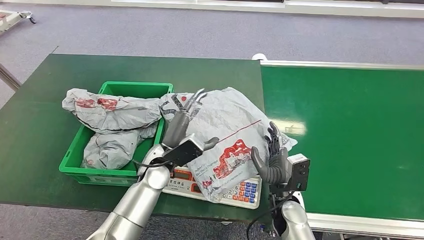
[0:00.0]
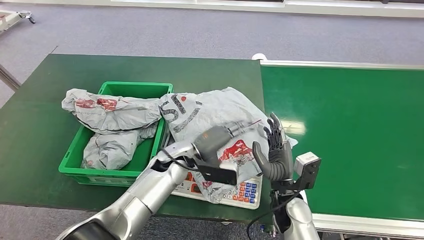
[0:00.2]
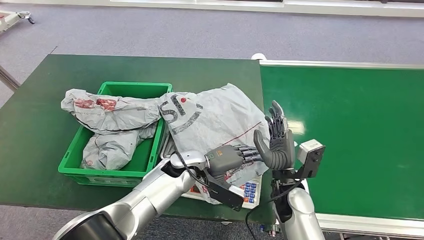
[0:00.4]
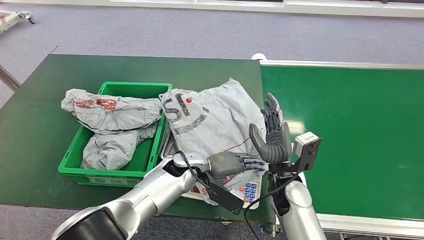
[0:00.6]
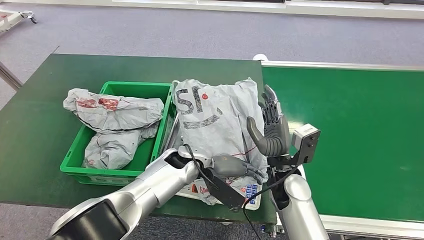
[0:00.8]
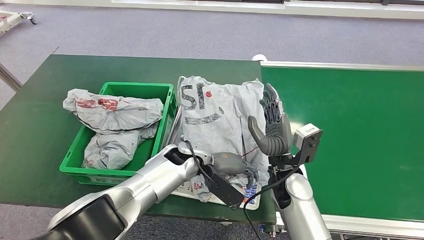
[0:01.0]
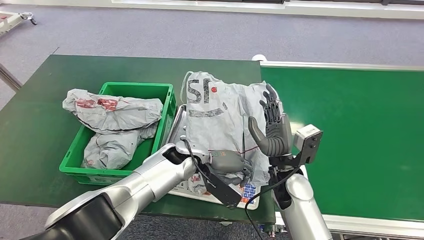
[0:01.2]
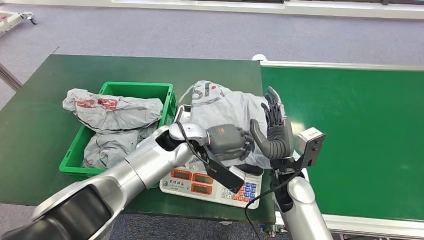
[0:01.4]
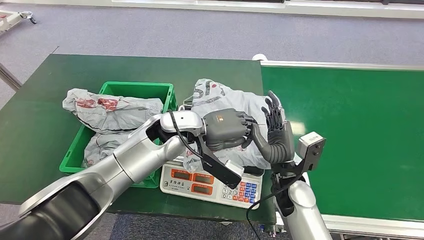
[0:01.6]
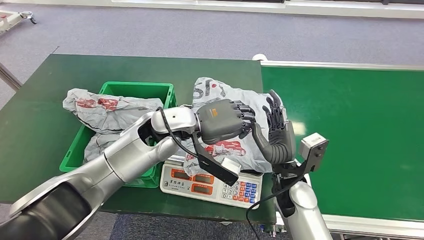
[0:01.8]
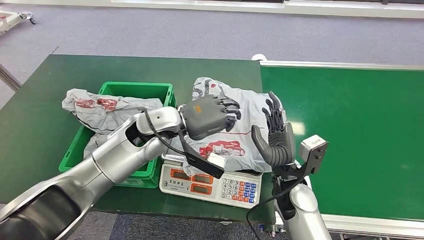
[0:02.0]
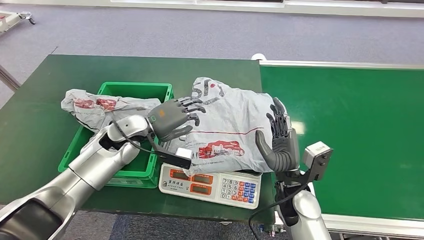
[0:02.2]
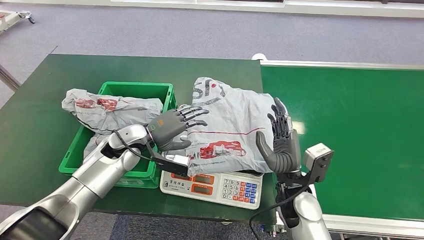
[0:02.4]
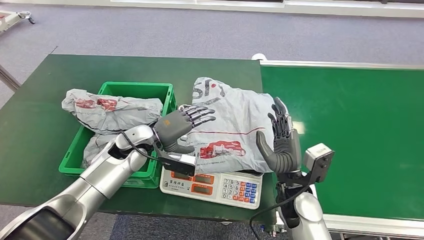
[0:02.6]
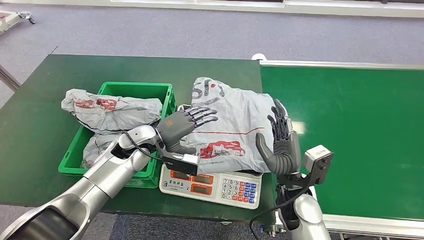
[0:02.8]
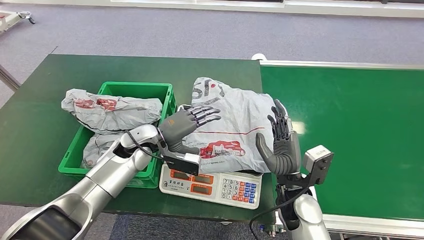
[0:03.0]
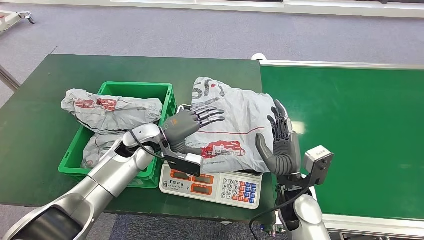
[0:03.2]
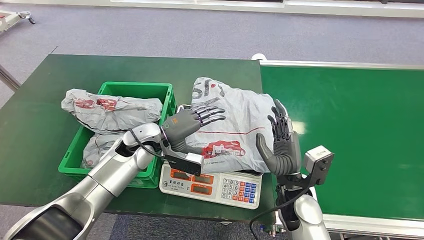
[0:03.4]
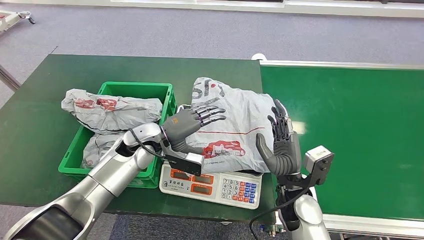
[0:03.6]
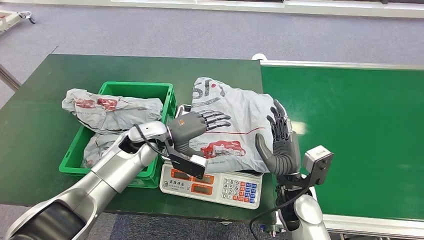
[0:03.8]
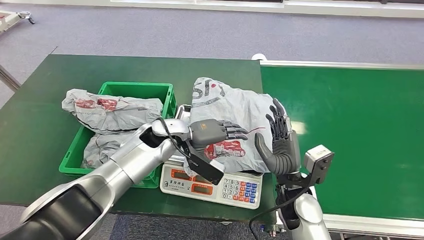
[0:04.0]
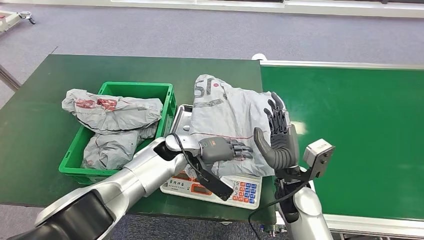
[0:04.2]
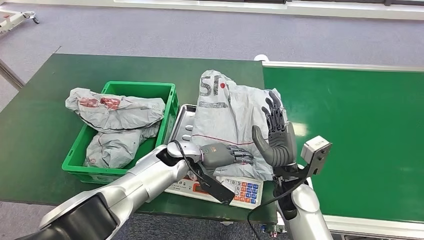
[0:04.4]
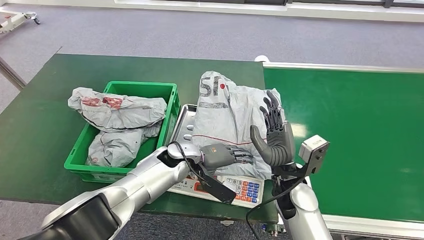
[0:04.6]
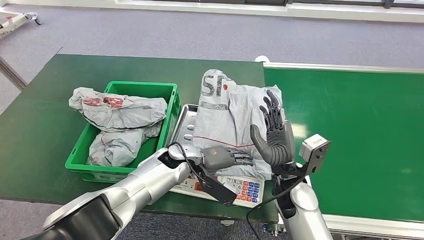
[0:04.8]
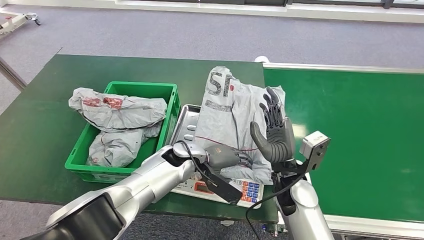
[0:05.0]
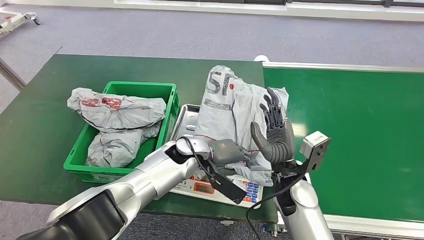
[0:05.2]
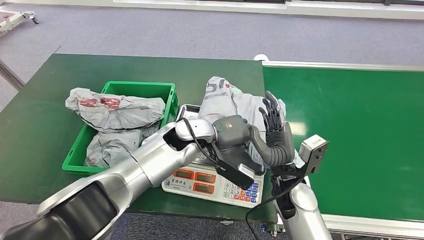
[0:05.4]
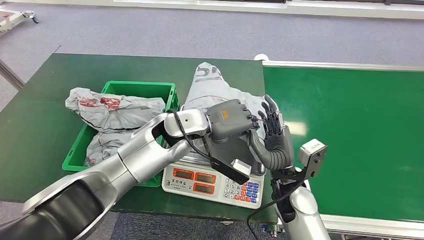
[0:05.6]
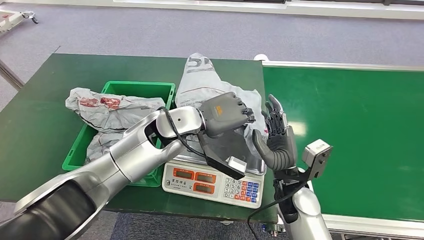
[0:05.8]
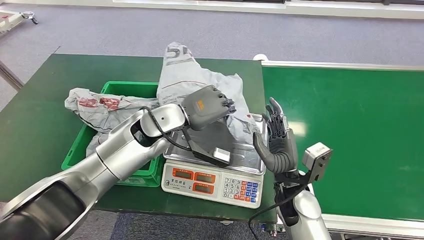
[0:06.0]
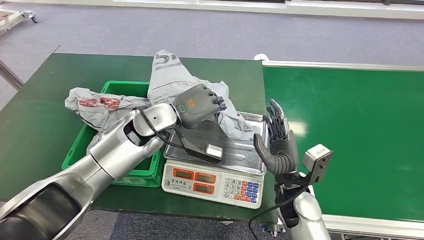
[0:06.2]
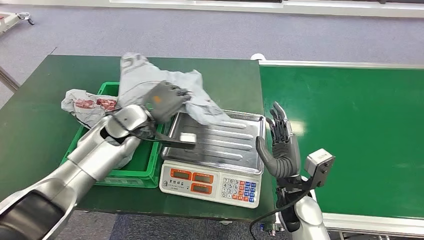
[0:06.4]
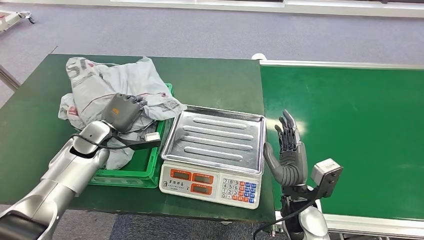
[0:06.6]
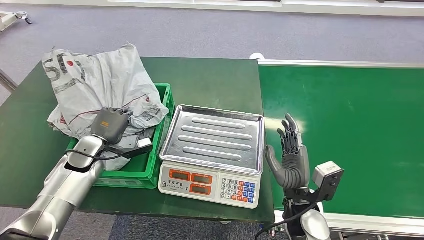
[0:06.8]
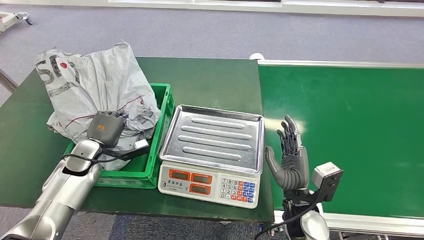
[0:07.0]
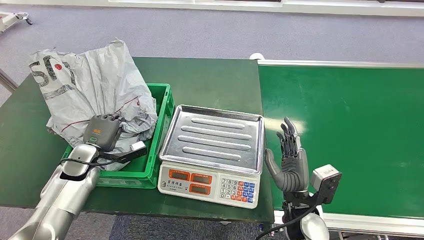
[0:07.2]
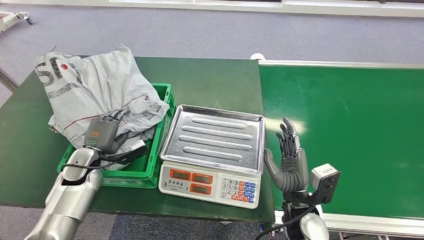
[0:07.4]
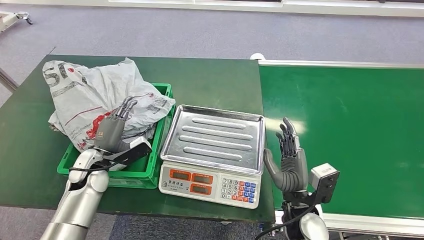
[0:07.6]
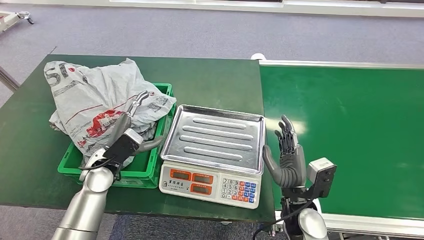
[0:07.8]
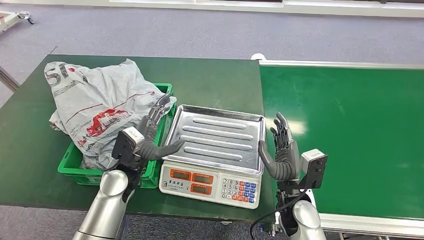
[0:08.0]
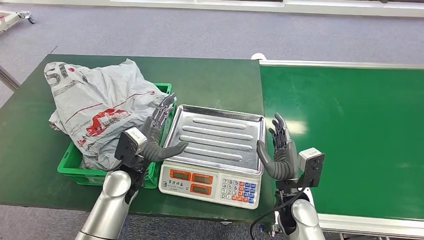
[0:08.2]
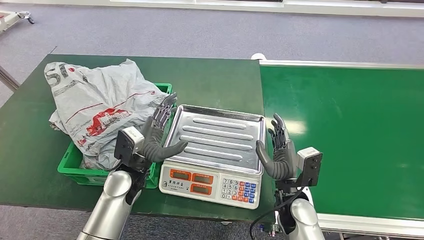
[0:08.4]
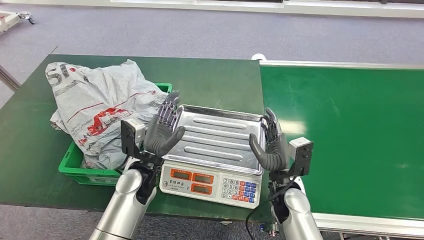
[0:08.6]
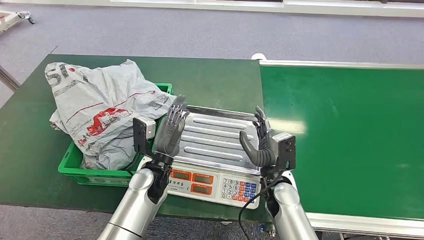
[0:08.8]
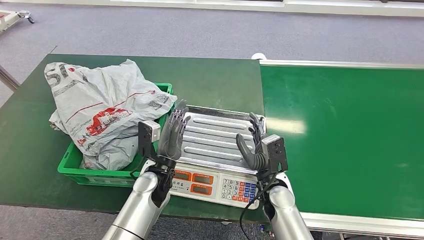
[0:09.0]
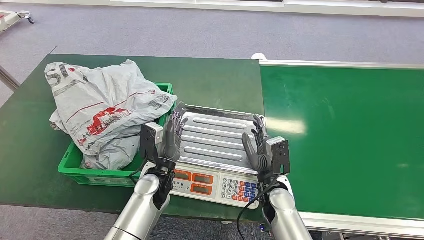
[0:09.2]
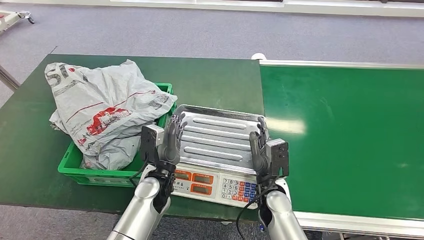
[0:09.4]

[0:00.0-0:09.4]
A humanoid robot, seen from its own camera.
Step, 0:00.0 to 0:05.6: Pick up the package from the inbound machine.
Step, 0:06.0 to 0:09.4: Place the package into the parcel locker.
0:01.6 to 0:03.2: The left hand goes roughly 15 cm to the left and downward.
0:07.8 to 0:09.4: The right hand moves to the left, roughly 5 cm. The left hand shifts approximately 15 cm to the right.
